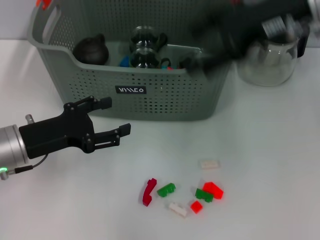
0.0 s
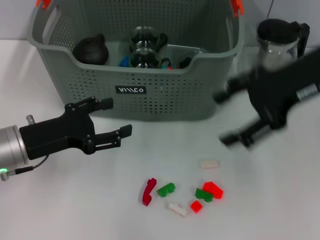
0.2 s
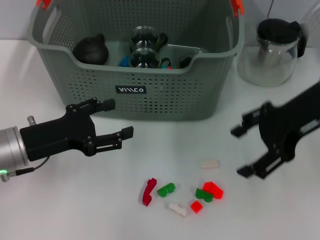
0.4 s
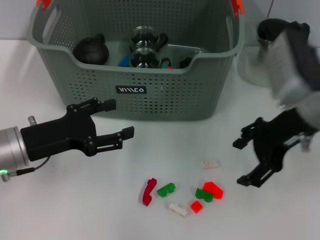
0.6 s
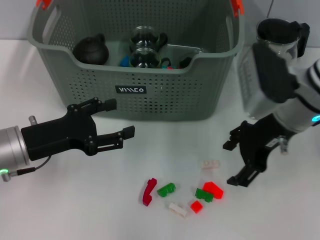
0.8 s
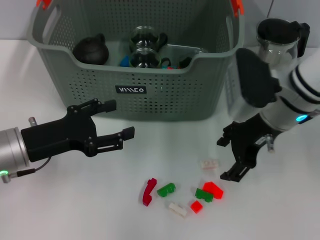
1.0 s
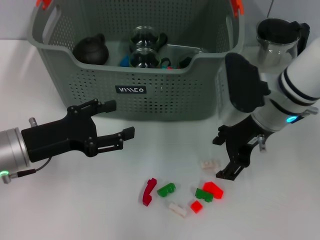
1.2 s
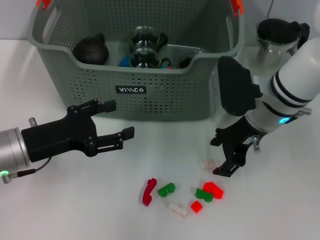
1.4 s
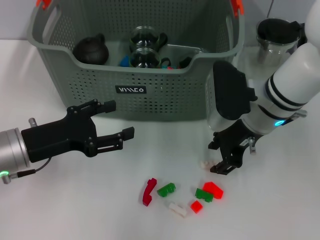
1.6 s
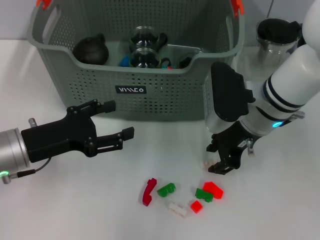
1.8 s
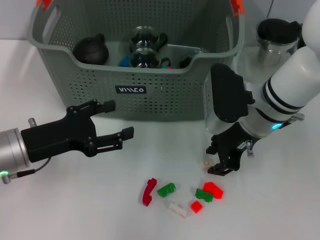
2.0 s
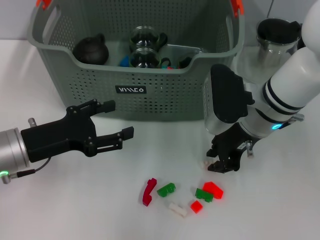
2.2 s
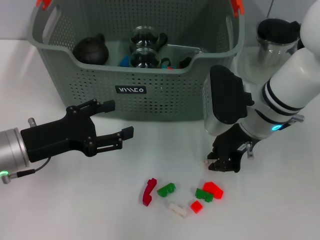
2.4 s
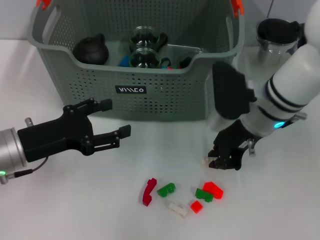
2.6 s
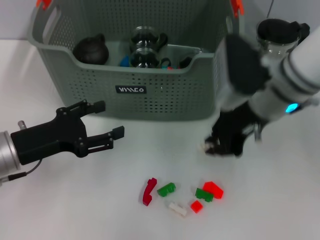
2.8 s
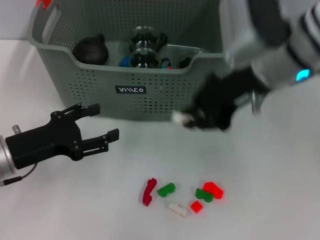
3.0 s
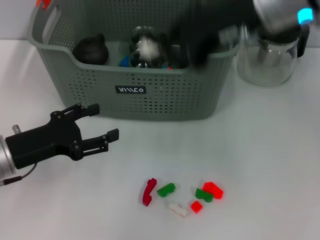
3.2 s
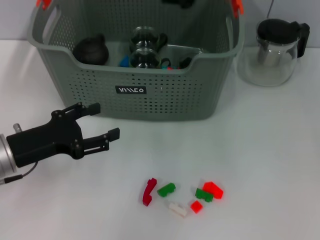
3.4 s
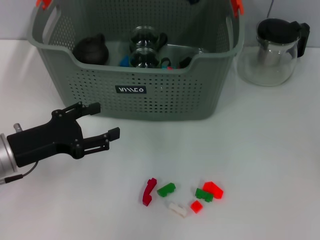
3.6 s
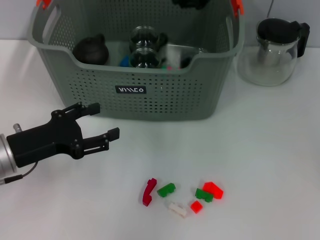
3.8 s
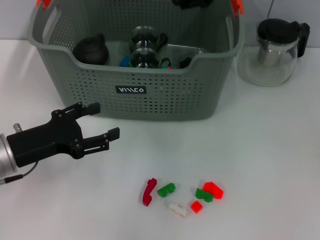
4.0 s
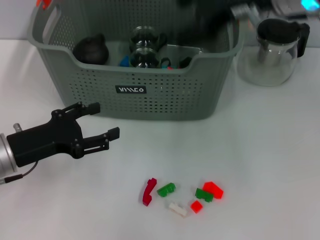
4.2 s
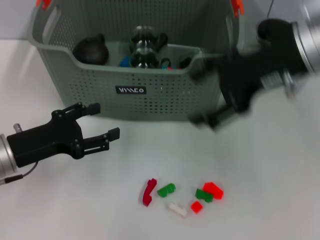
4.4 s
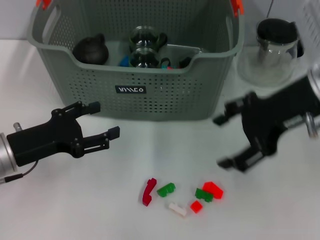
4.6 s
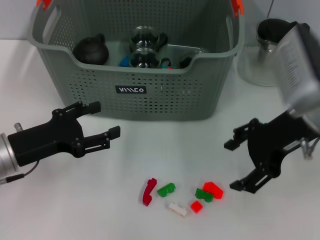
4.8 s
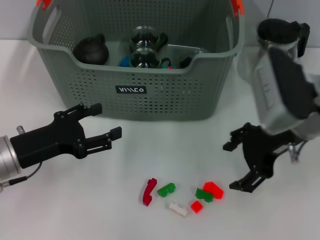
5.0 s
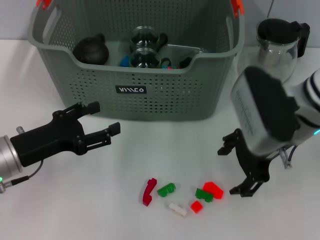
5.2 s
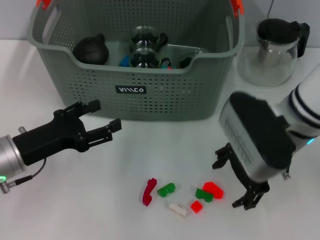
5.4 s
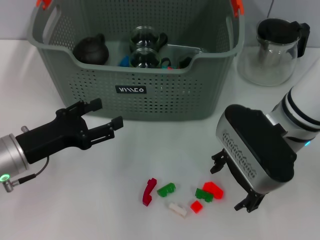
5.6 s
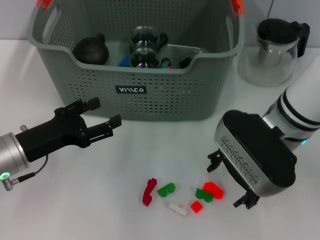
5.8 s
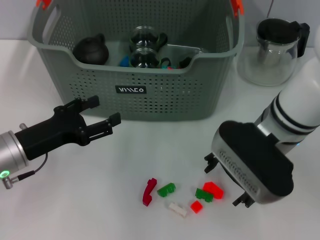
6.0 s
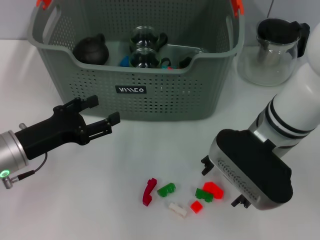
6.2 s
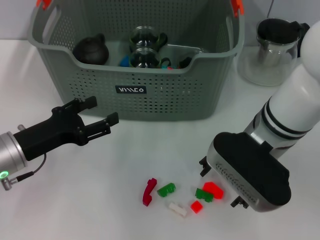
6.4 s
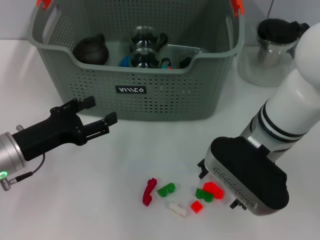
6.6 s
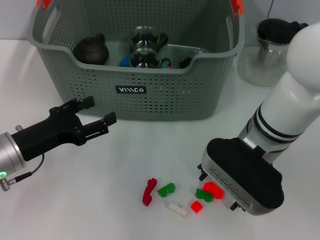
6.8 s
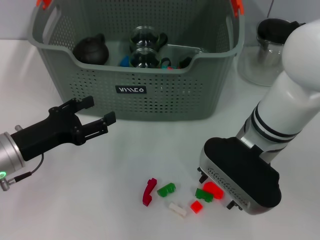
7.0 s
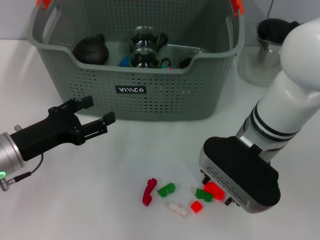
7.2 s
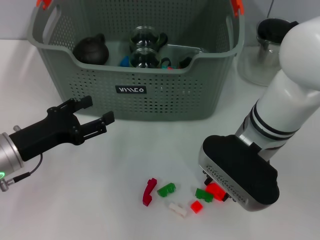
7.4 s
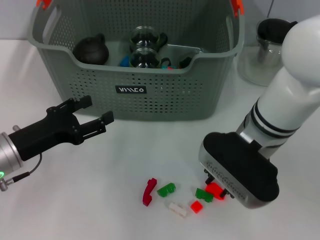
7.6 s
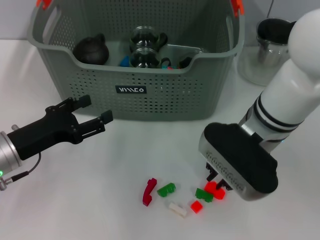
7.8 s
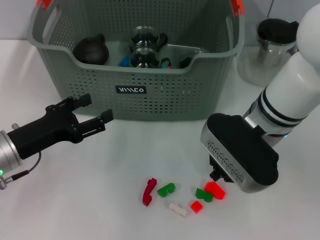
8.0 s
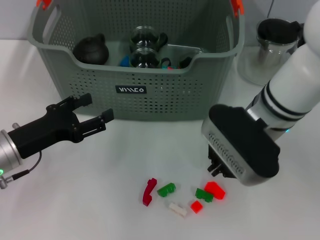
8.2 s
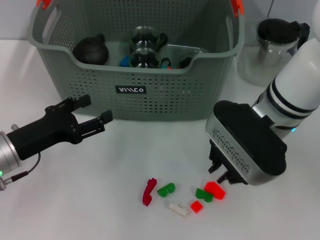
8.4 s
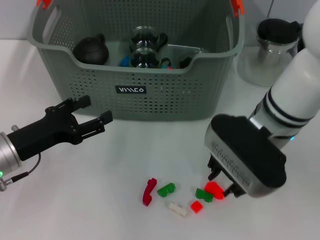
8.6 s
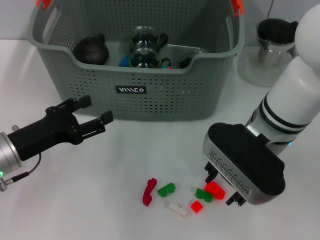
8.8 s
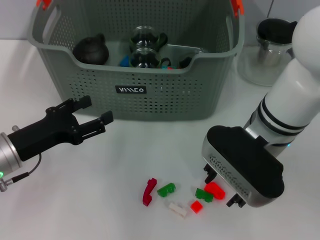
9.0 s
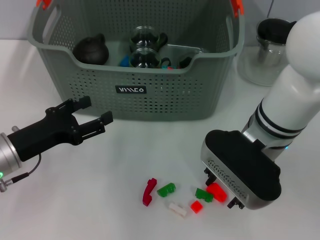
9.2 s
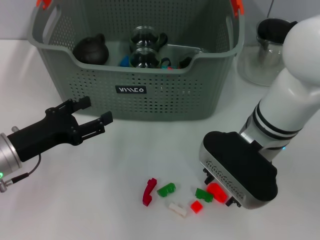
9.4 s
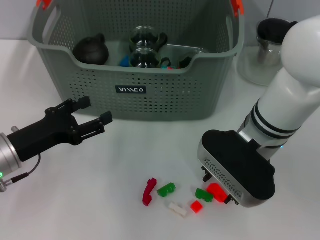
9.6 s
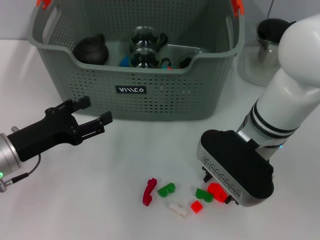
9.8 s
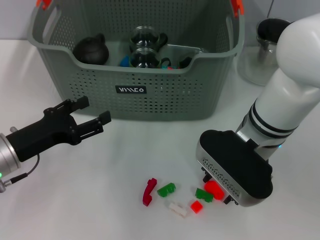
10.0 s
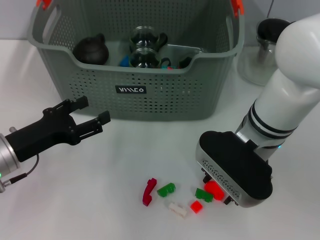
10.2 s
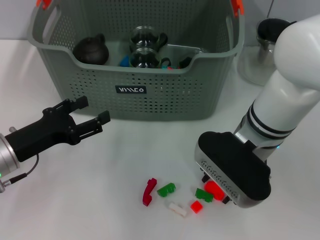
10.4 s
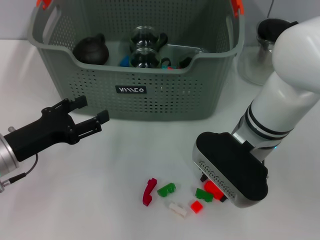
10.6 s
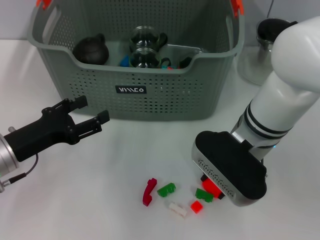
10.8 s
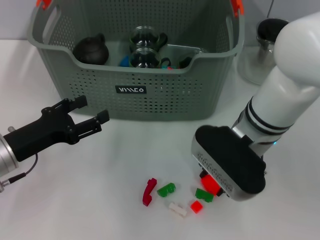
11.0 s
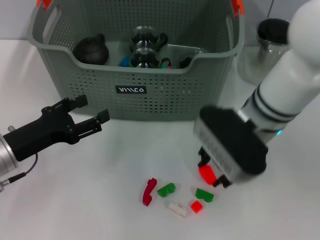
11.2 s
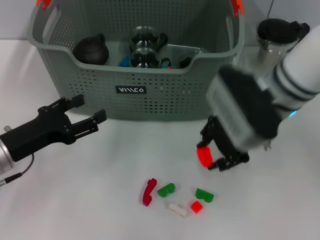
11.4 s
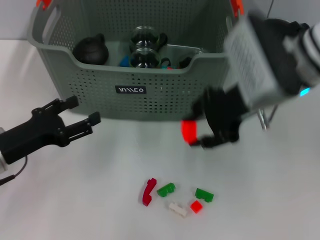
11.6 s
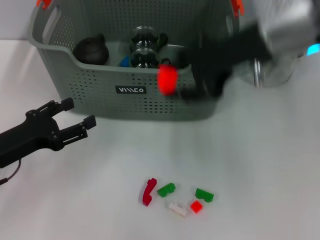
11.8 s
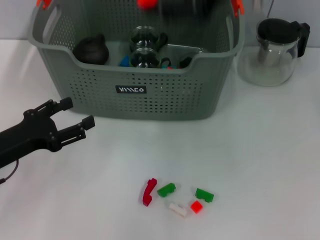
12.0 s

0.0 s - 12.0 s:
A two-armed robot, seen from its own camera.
Task of the whole recording: pick up the teacup on the table and place it into the storage bin, pick up the block on the table and place it into the storage bin.
Step, 0.0 s - 2.4 s: Grasp the white block with right gripper.
Step, 2.6 s - 3.8 s: Place the white block in the storage box with right gripper.
Step, 4.0 s - 10.6 s: Grasp the orange block with right gripper.
0.0 s - 1.6 s: The right gripper is displaced downward by about 15 cm.
1.6 s - 3.0 s: The right gripper goes approximately 10 cm upward, and closes up.
3.0 s - 4.4 s: The right gripper reaches approximately 10 cm forward, then returns, and opens up.
4.4 s - 6.0 s: The right gripper travels downward by roughly 10 cm.
6.0 s - 7.6 s: The right gripper closes its fingers.
7.6 s - 9.0 s: The right gripper closes, then reopens.
9.0 s - 10.4 s: There are only small adjustments of the grippers.
10.4 s - 12.0 s: The right gripper is displaced upward by roughly 20 cm.

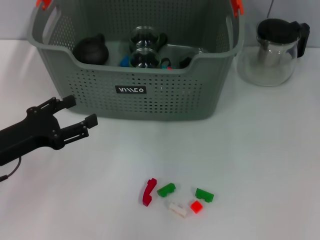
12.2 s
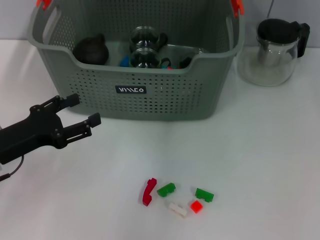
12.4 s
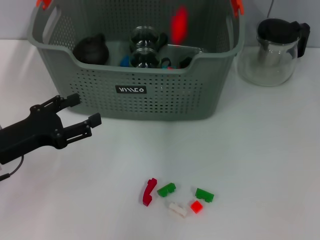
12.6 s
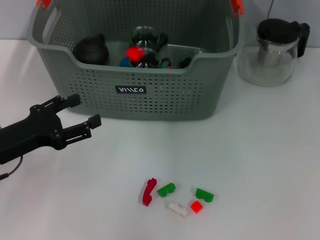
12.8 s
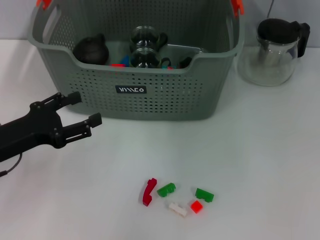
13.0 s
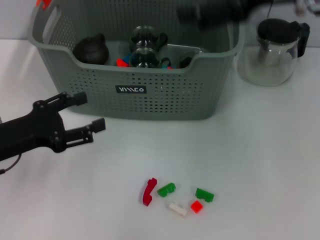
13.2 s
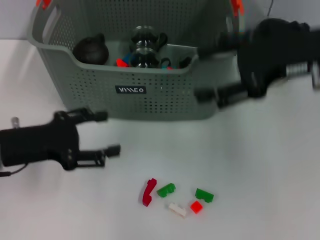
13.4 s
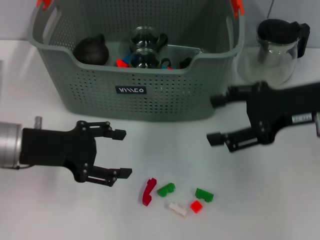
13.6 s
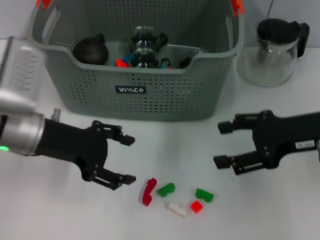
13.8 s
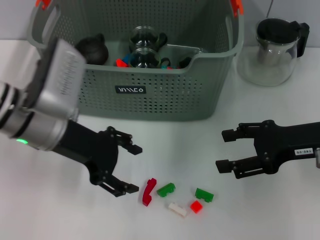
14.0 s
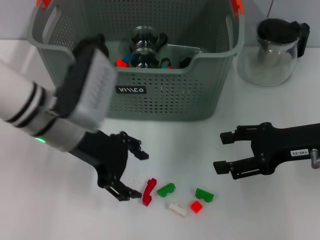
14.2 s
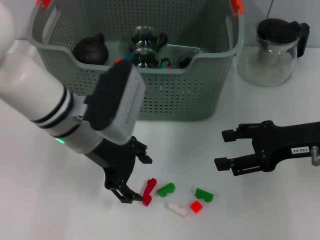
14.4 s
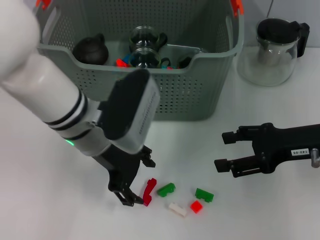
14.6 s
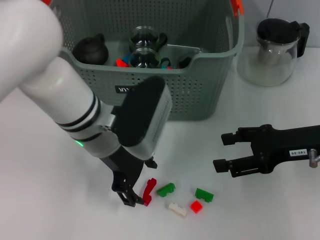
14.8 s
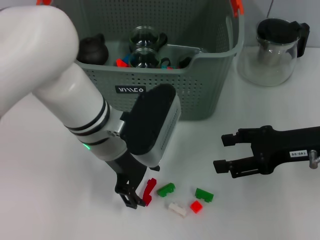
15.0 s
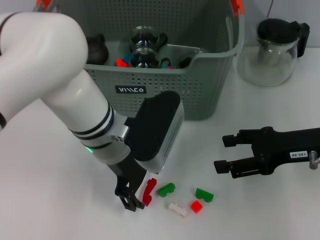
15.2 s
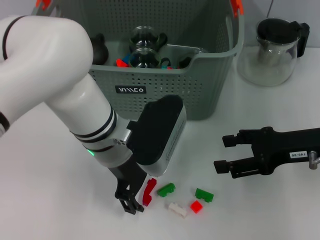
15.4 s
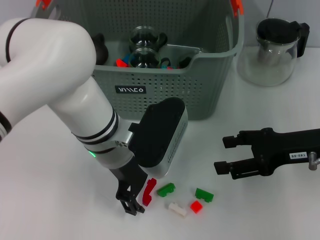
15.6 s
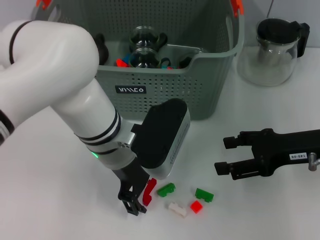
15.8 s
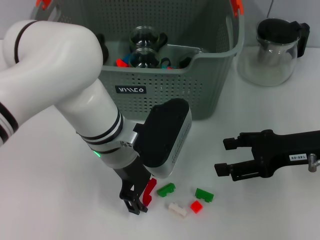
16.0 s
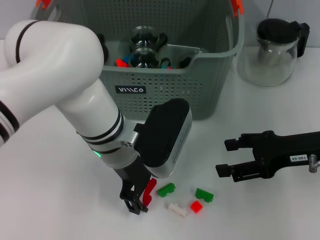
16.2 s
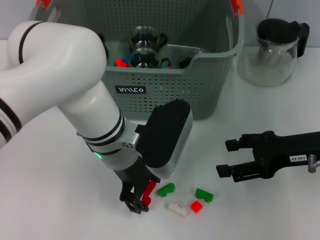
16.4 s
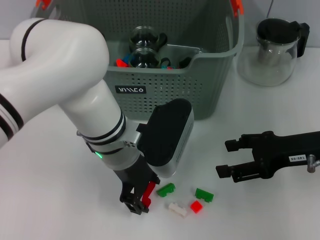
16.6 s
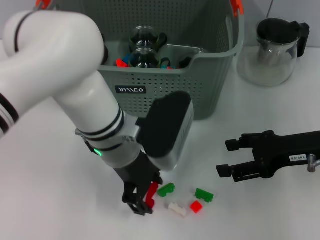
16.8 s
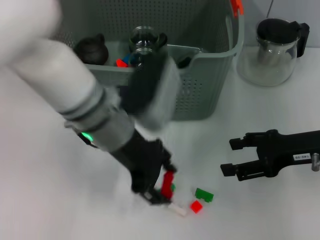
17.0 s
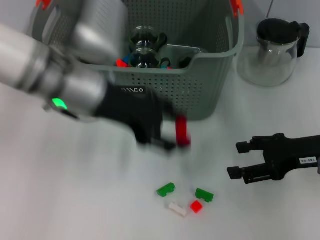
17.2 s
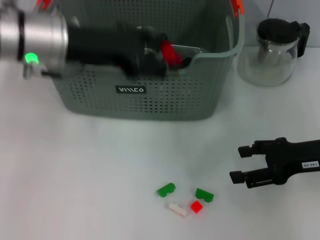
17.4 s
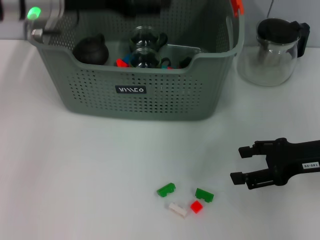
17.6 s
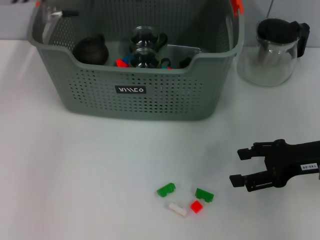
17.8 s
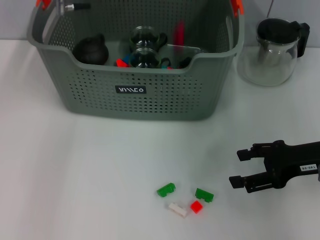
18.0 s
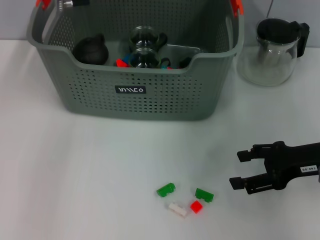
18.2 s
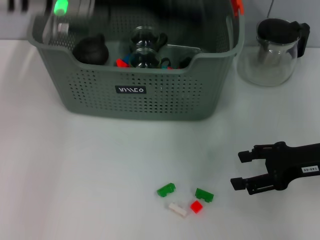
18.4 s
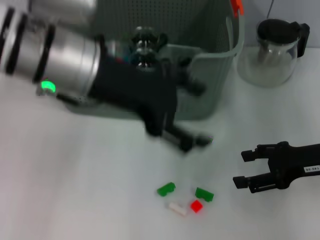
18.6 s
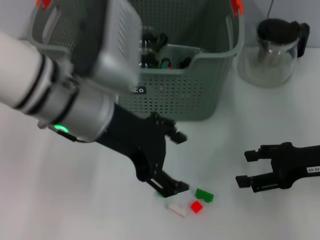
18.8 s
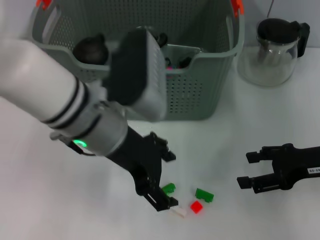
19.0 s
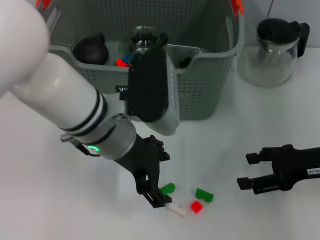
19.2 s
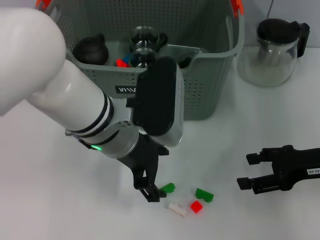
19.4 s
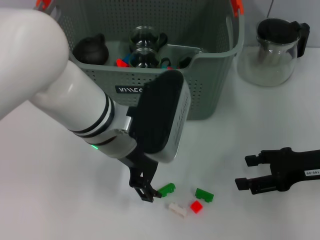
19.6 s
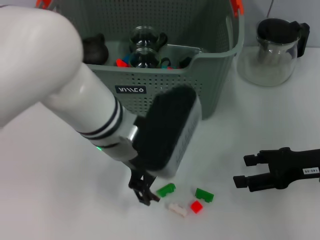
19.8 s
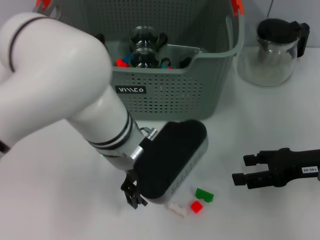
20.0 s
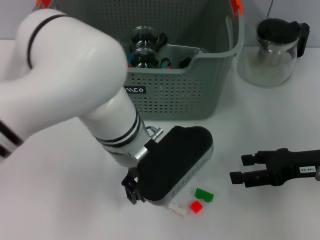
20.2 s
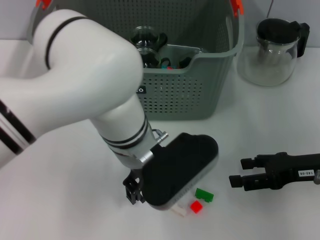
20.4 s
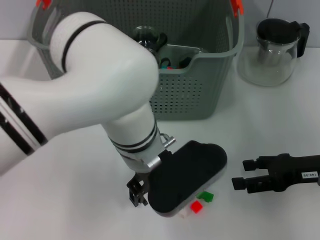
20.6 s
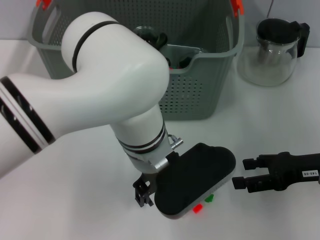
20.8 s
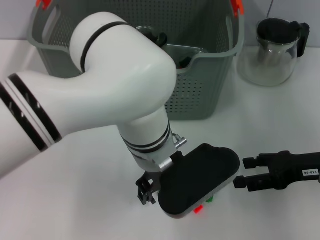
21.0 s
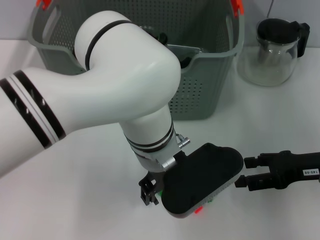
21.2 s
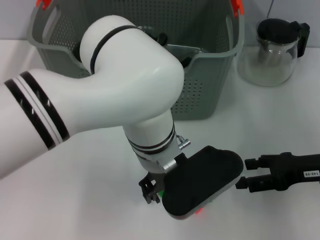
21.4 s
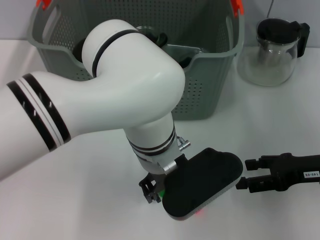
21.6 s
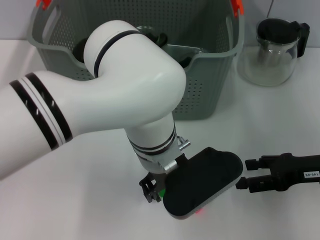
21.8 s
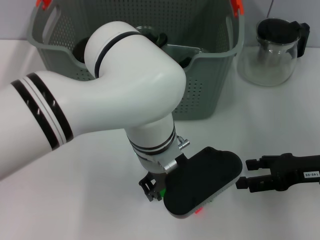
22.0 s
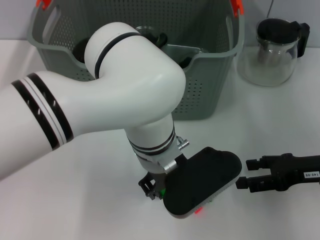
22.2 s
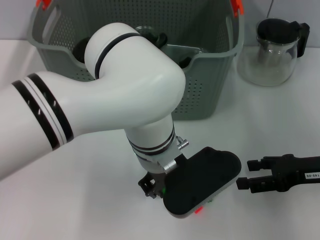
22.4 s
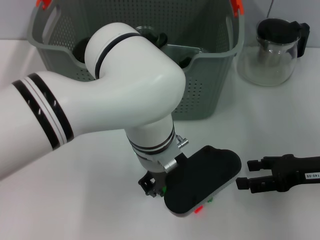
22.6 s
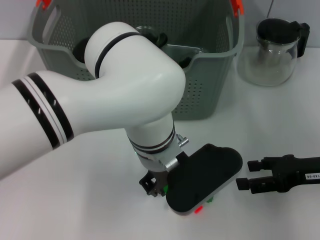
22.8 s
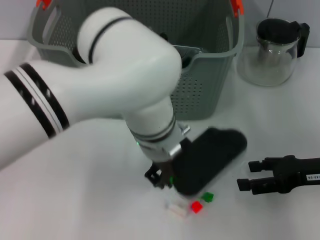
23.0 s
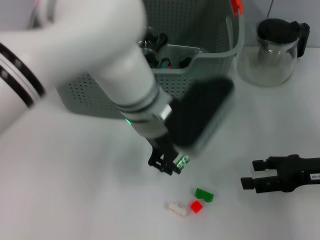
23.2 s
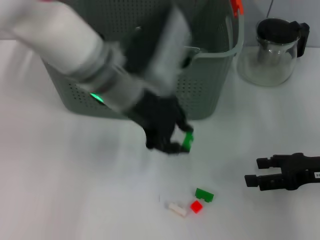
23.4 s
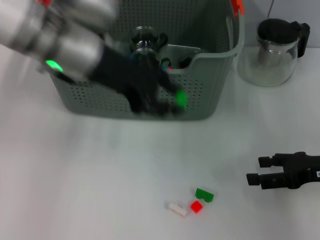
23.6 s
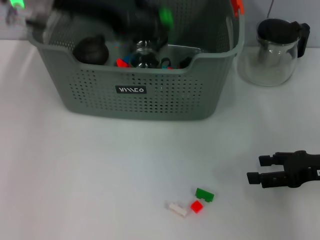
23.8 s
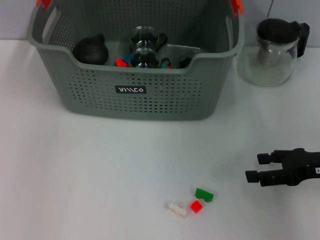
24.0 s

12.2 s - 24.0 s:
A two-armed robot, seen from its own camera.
Task of the whole recording: pick up the teacup on the table and place it into the storage bin, pick up the block on the table and place it into the storage bin.
Step, 12.8 s - 16.4 s: Grasp the red block with left gripper.
Step, 16.8 s - 18.0 s: Place the red block in the storage box with left gripper.
Step, 18.2 s - 22.4 s: Grasp the green block with left gripper.
12.2 s - 13.6 s: The right gripper shifts about 20 cm downward, to the right and backward, and opens up; the left gripper ends up some 5 cm from where it was.
13.6 s - 15.2 s: The right gripper goes some 5 cm downward. Meanwhile the left gripper shifts roughly 15 cm to the right.
15.2 s - 16.6 s: There are only small adjustments of the grippers.
16.6 s - 18.2 s: The left gripper goes approximately 20 cm upward, forward and to the left.
18.2 s - 19.6 s: The left gripper moves backward, downward and to the right, about 15 cm.
19.6 s - 21.0 s: The left gripper moves to the right, roughly 5 cm.
21.0 s - 22.6 s: The left gripper closes up.
22.6 s - 24.0 s: The left gripper moves upward, to the left and forward, about 30 cm.
